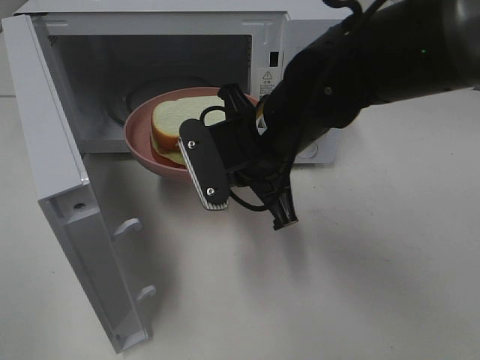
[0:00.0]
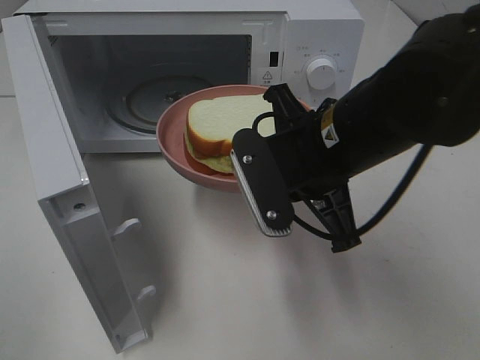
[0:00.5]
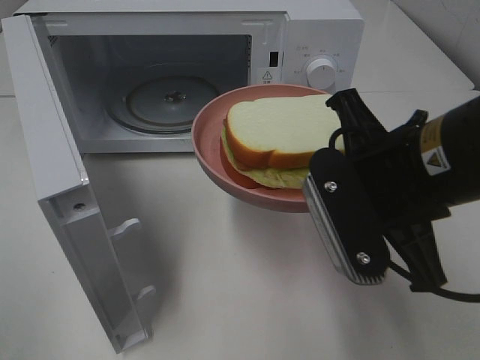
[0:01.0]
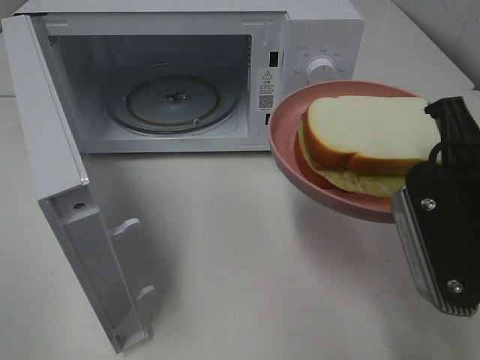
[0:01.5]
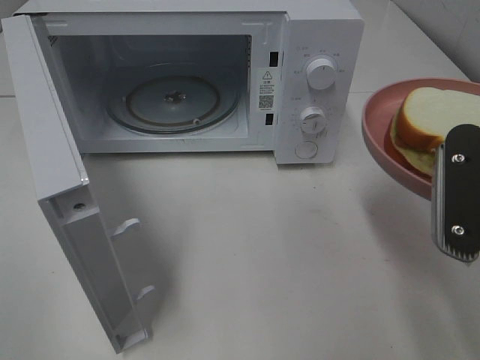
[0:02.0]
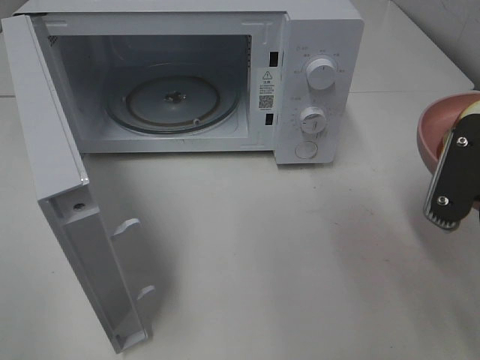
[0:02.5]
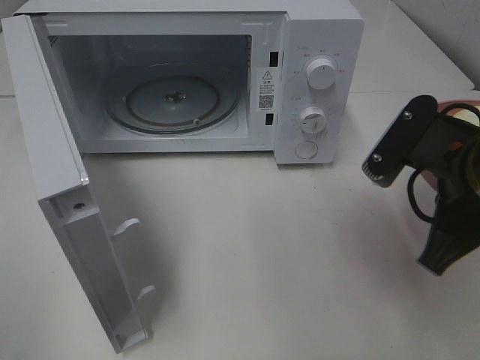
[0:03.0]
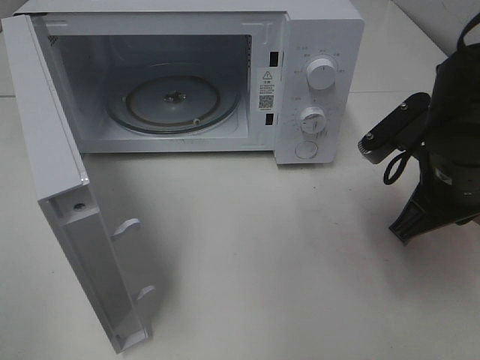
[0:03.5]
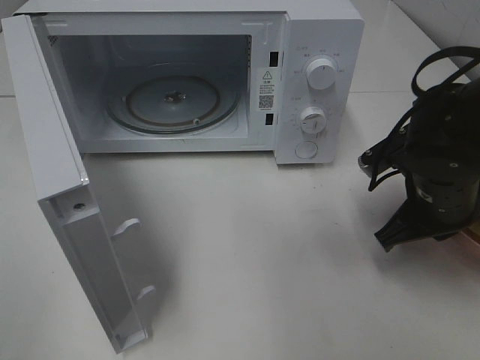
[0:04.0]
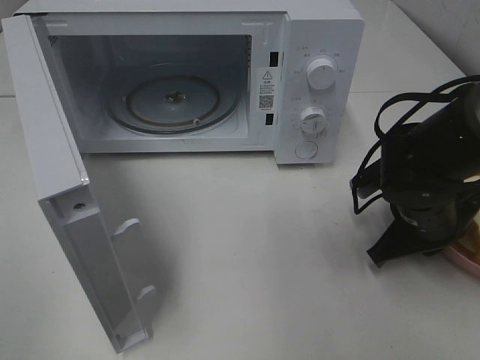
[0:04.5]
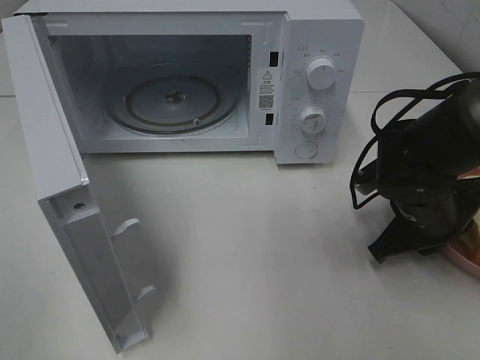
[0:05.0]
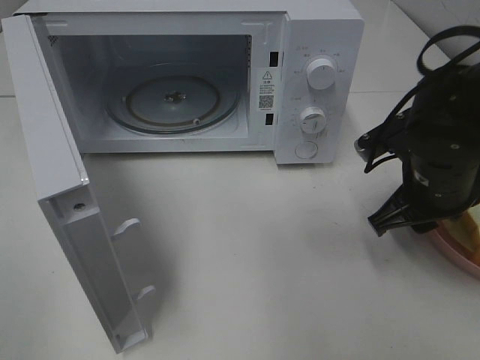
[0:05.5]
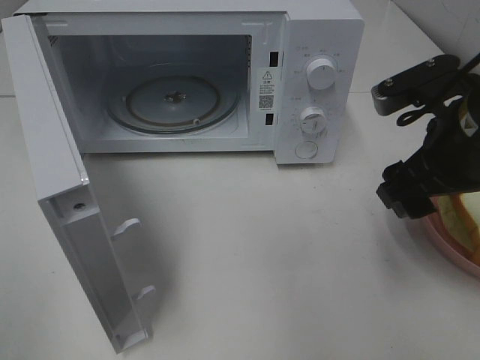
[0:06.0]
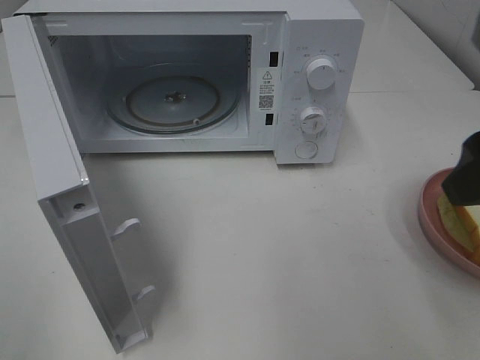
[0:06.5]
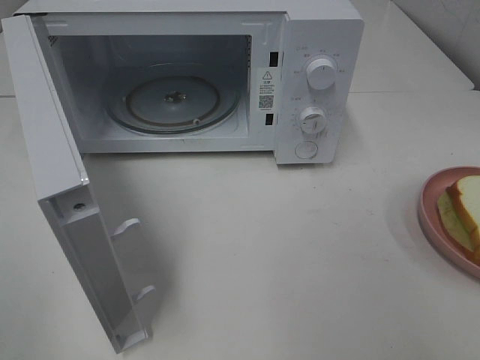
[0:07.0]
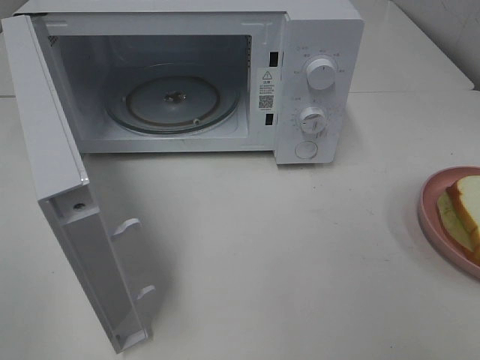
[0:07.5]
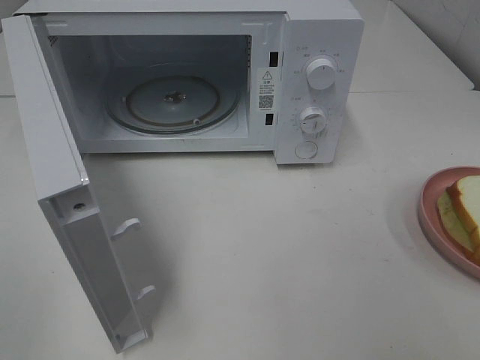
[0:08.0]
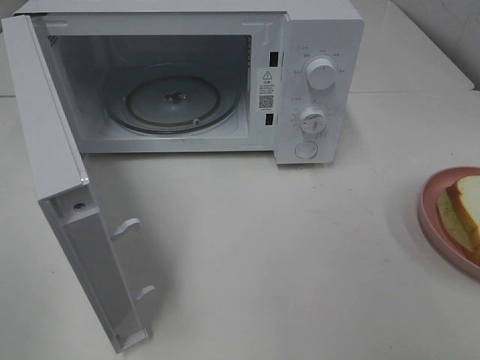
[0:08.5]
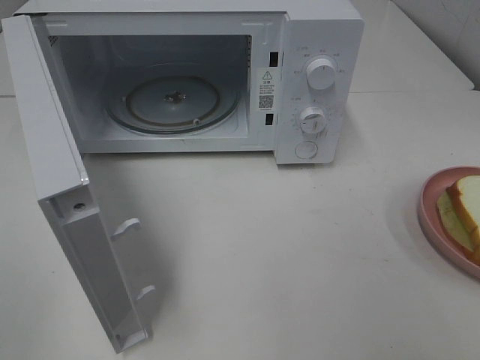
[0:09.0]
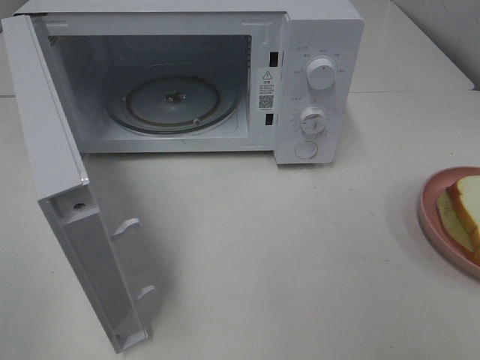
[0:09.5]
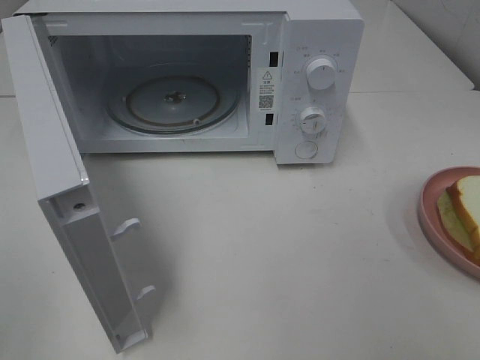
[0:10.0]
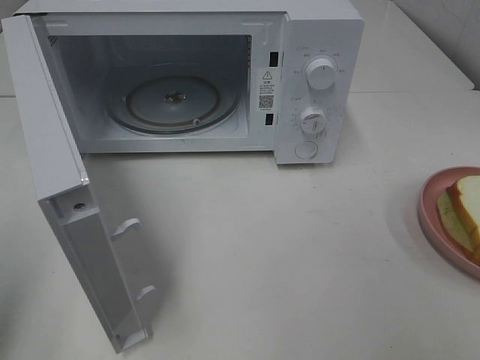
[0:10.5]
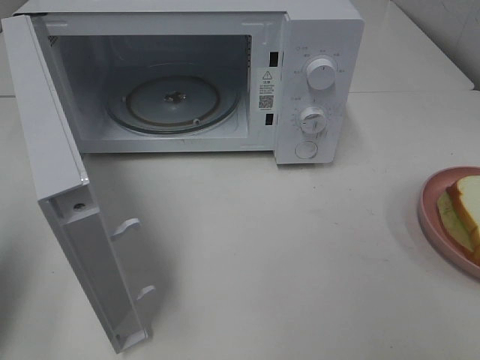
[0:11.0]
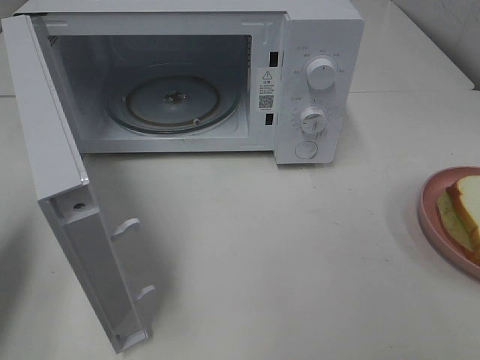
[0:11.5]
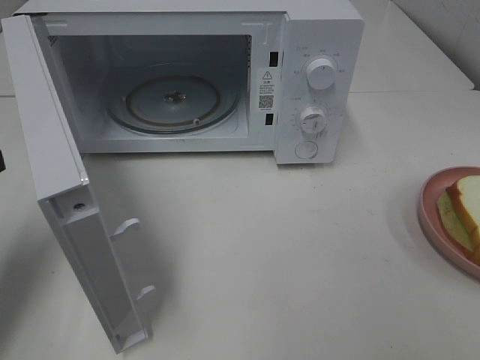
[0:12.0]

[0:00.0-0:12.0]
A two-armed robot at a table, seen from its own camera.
Task of the whole recording: Heat Sandwich.
Step, 0:00.0 to 0:06.0: Right hand: place the plate on the table.
0:00.0 to 0:02.0: The right gripper travels to the right and backward by about 20 cm.
0:02.0 to 0:04.0: The right gripper heads forward and downward, covering approximately 15 cm.
0:04.0 to 0:06.0: The right gripper goes some 10 cm upward, and opens up.
0:06.0 to 0:08.0: The right gripper travels backward and to the right by roughly 25 cm.
0:10.0 to 0:12.0: The left gripper shifts roughly 25 cm forward and downward, and closes.

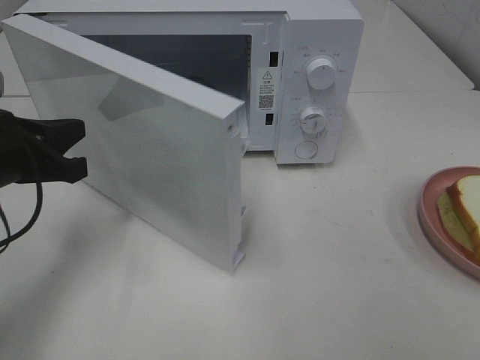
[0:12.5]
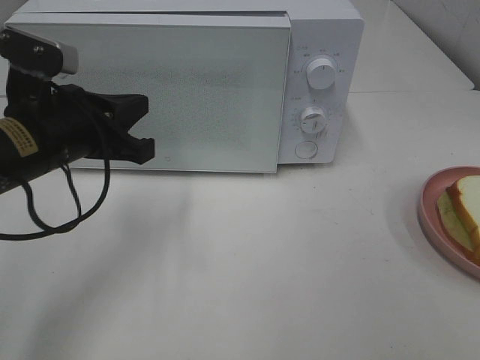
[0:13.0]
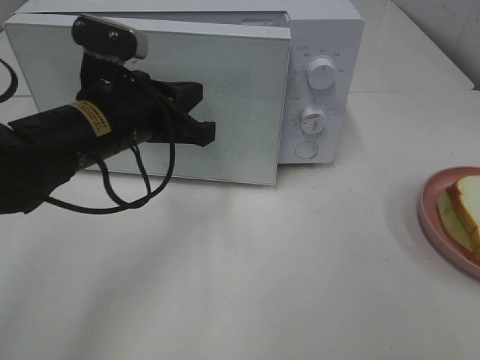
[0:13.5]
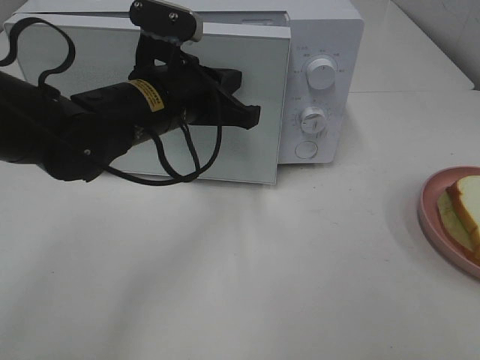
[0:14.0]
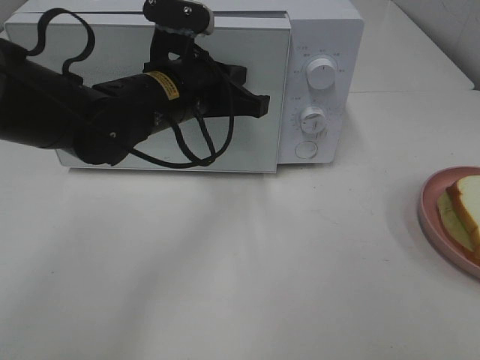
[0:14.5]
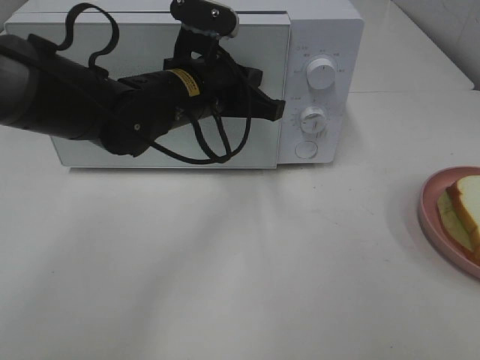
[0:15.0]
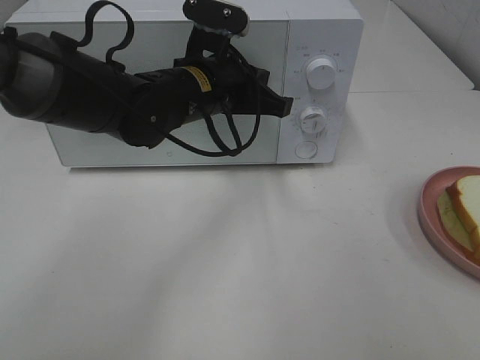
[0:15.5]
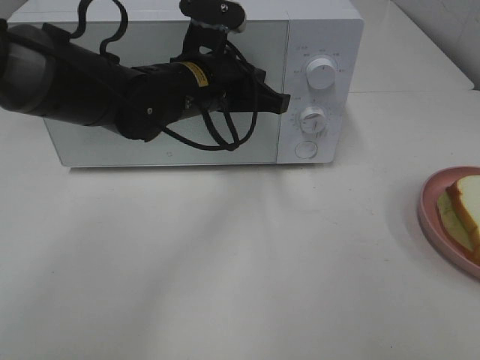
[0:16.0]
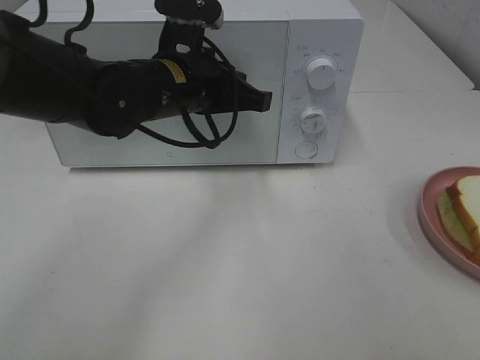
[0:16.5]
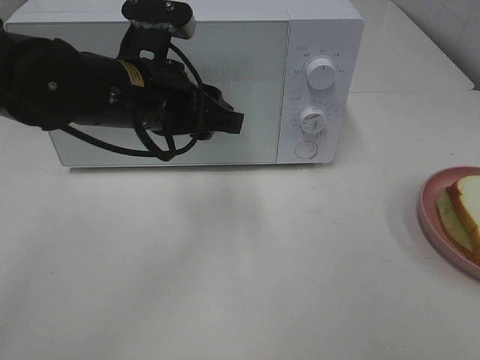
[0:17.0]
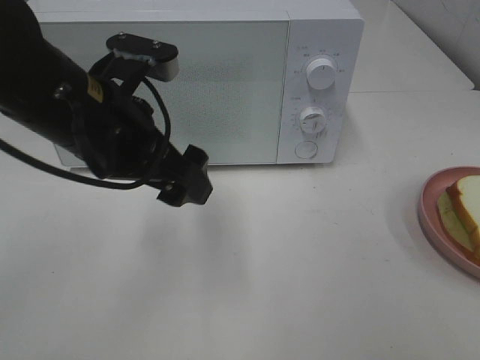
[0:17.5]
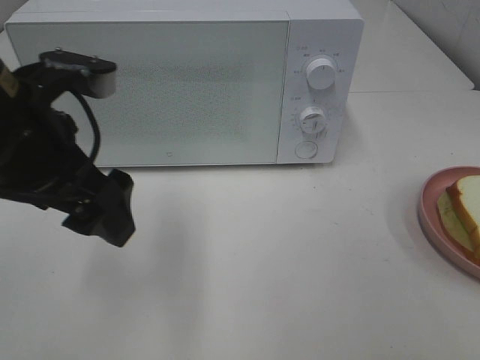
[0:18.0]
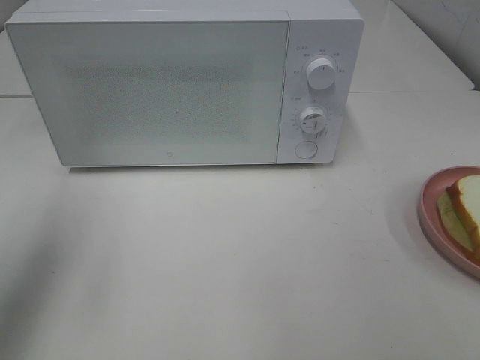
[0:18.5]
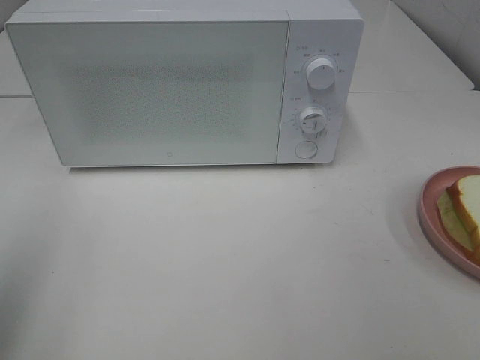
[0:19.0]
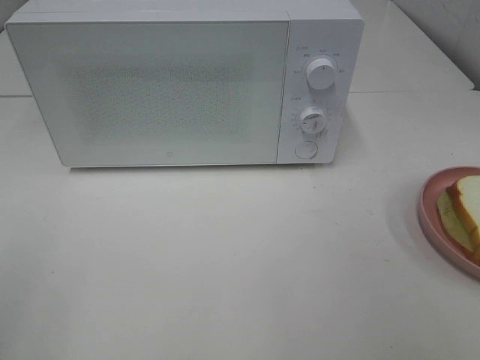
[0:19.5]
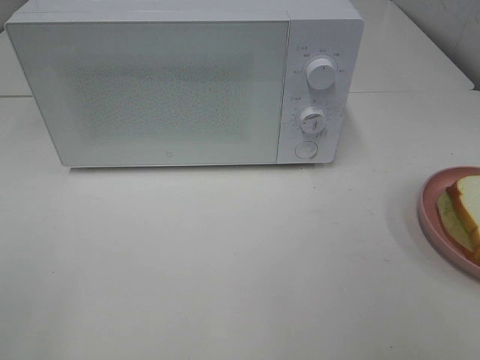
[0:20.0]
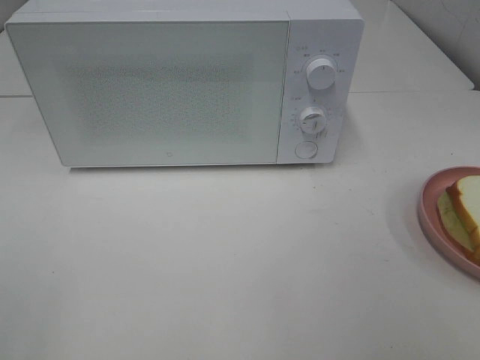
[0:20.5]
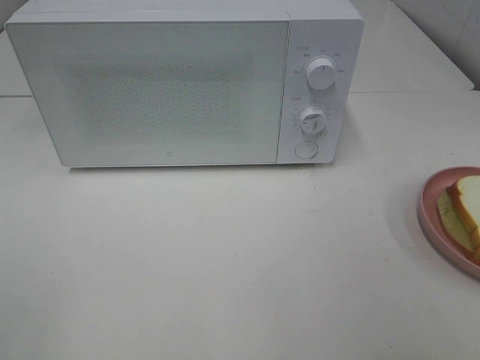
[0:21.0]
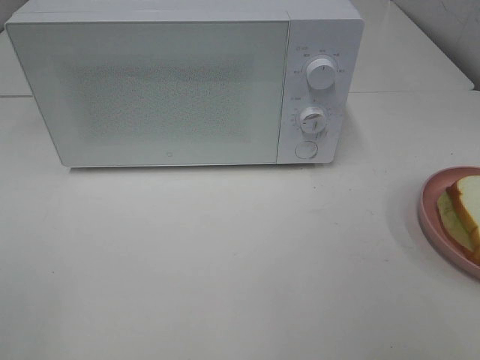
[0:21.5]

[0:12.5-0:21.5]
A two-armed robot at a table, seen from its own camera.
Task of the whole recording: Heat Sandwich.
Step, 0:12.5 to 0:16.5: Left hand: close the microwave door.
0:12.5 to 0:14.5: The left gripper heads to the right and forward, covering some 20 cm.
0:14.5 to 0:17.0: The left gripper ends up roughly 5 cm from where it was, and opens.
0:17.0 to 0:19.5: The left gripper is displaced backward and to the left by approximately 35 cm, and opens.

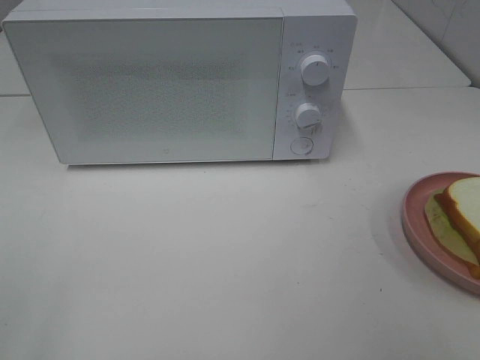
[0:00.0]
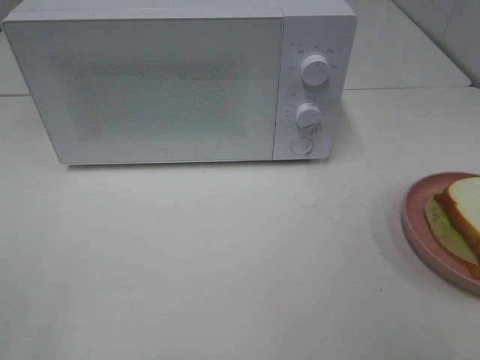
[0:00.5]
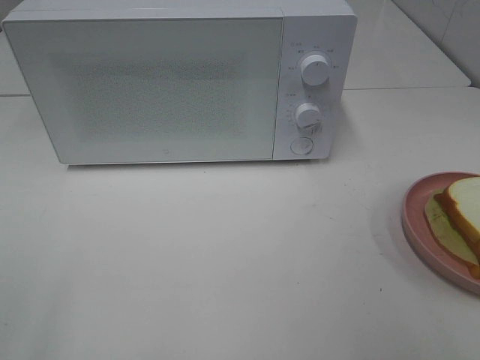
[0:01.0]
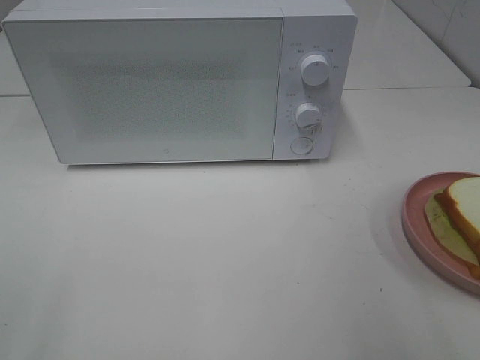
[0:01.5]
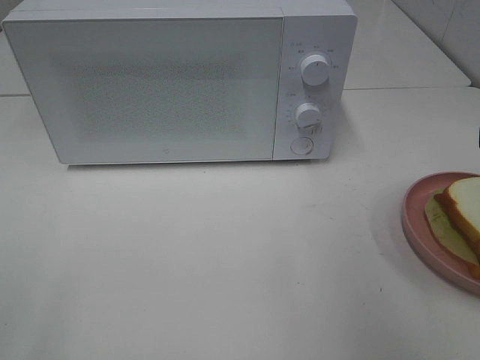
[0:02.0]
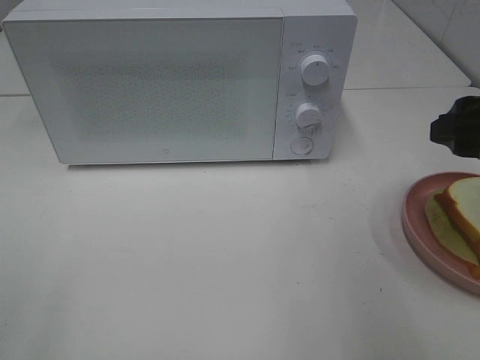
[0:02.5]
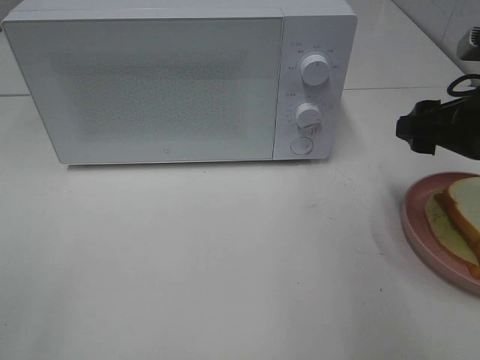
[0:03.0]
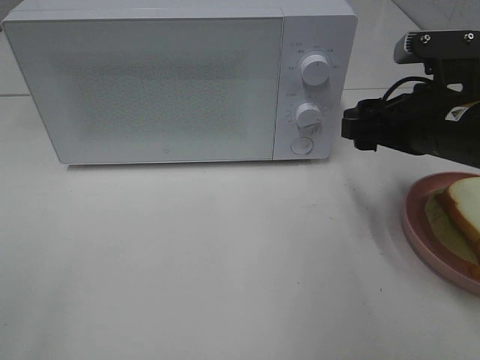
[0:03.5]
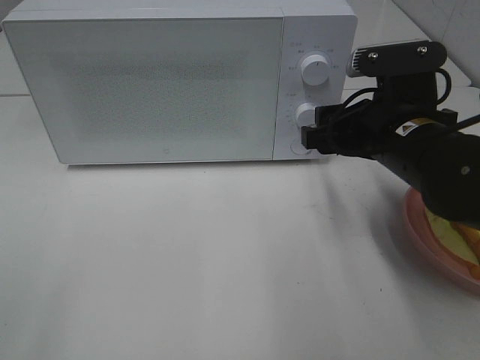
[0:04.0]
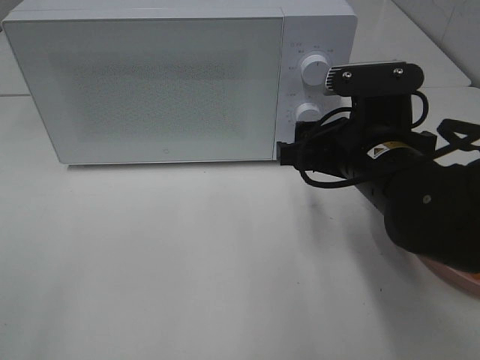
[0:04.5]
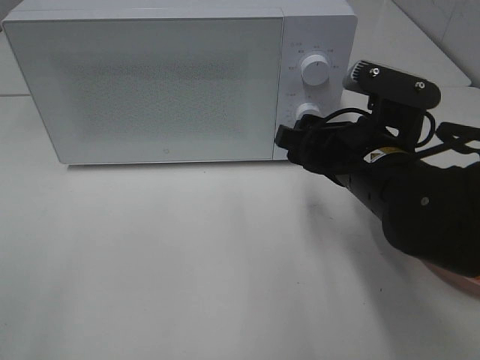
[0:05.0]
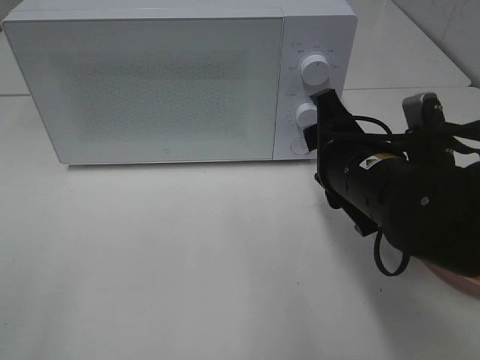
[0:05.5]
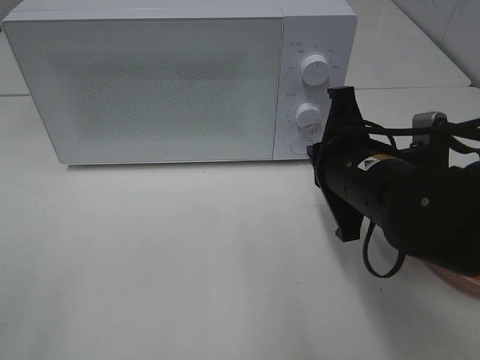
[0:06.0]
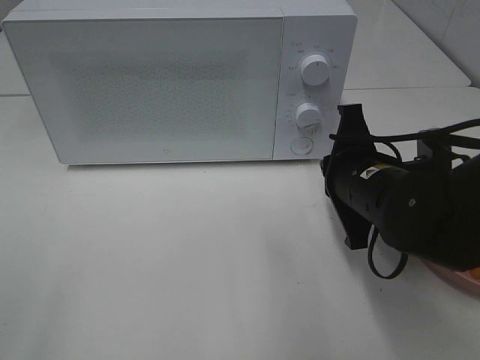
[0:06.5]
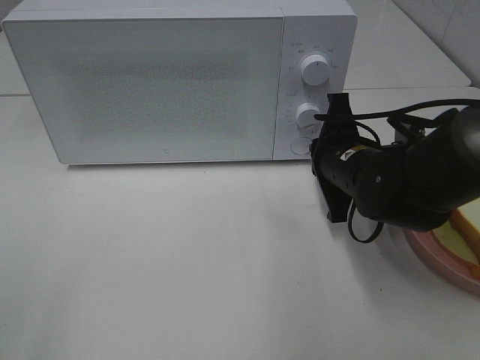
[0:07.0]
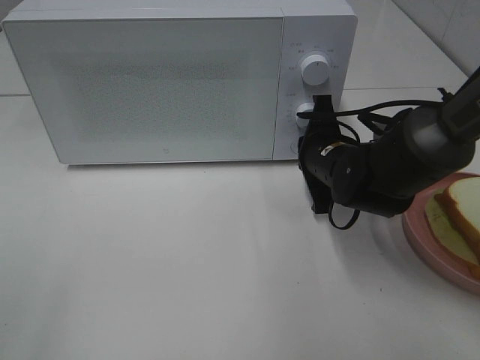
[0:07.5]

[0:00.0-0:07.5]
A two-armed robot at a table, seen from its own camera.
Task of the whole recording: Heat Sandwich.
0:02.0 to 0:04.0: The right gripper is displaced to the left, forward and downward by some 20 cm.
0:05.5 to 0:07.5: The right gripper goes roughly 10 cm forward and downward, and closes up.
